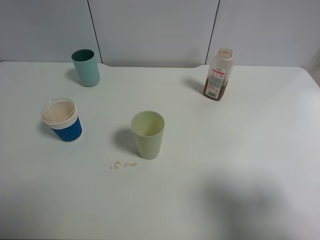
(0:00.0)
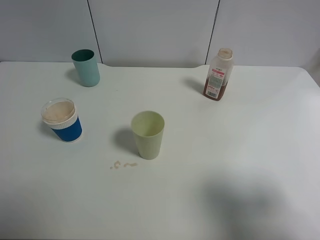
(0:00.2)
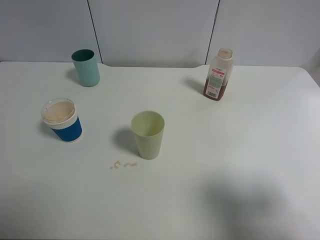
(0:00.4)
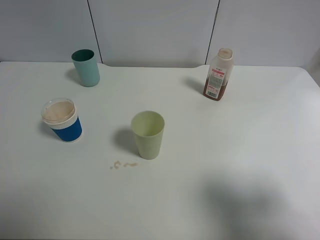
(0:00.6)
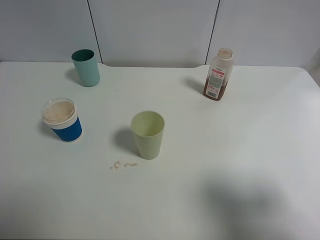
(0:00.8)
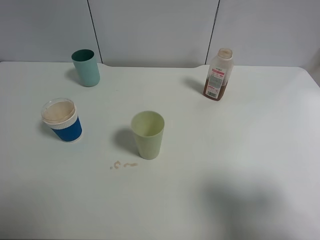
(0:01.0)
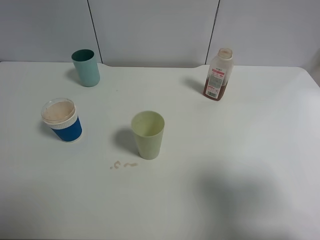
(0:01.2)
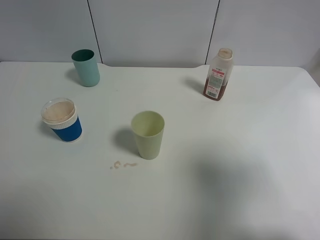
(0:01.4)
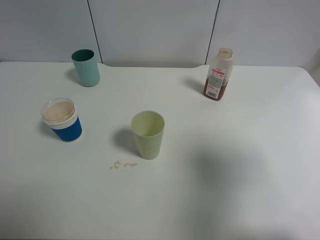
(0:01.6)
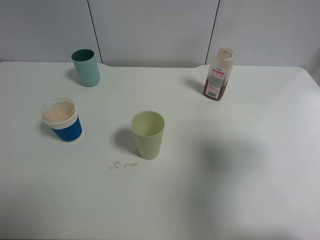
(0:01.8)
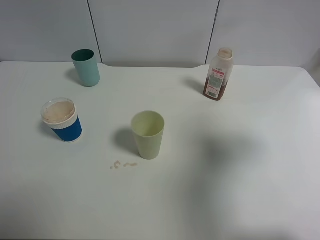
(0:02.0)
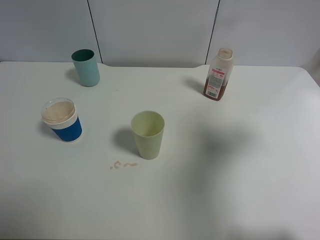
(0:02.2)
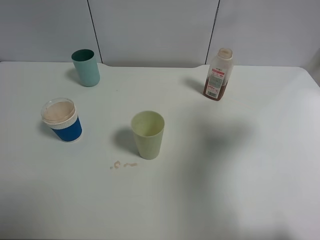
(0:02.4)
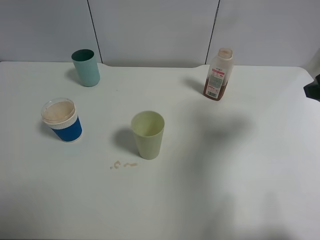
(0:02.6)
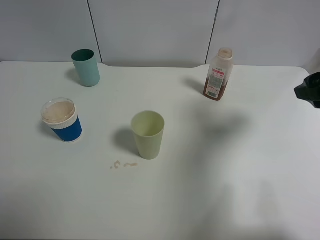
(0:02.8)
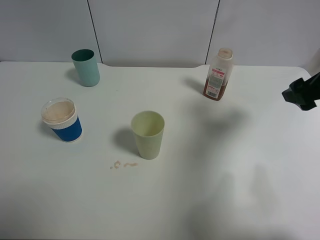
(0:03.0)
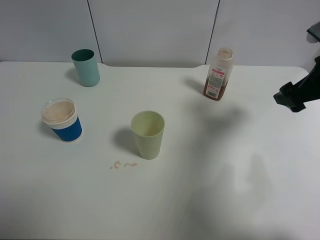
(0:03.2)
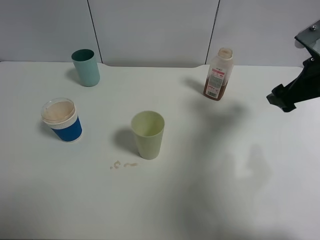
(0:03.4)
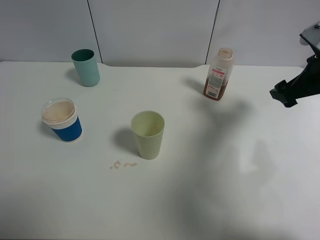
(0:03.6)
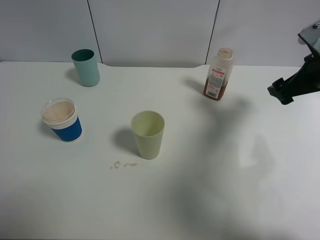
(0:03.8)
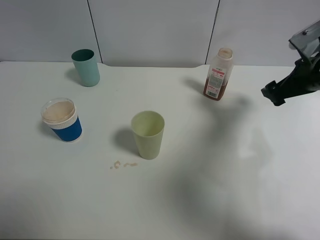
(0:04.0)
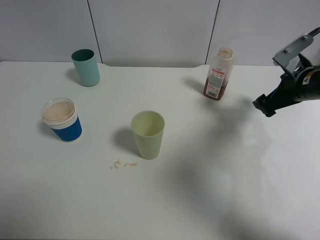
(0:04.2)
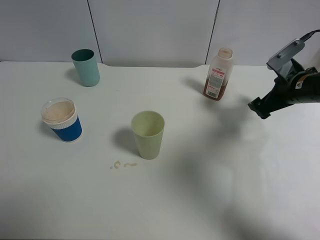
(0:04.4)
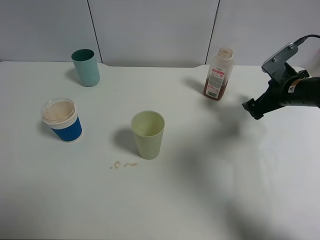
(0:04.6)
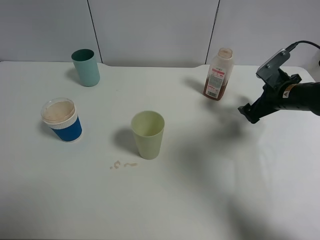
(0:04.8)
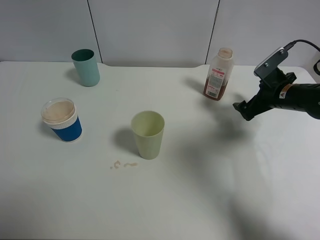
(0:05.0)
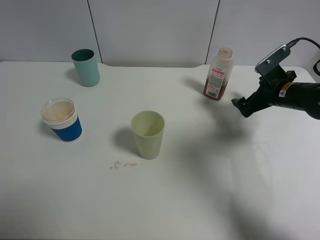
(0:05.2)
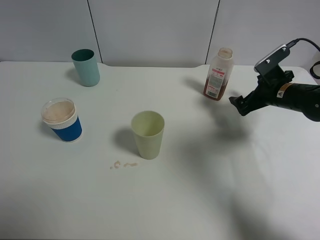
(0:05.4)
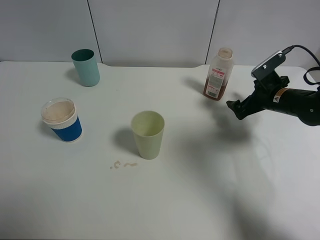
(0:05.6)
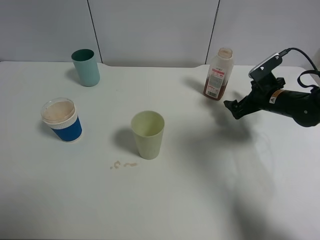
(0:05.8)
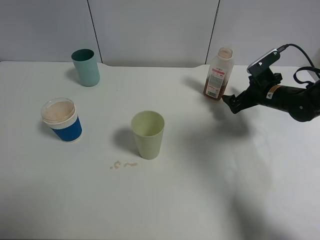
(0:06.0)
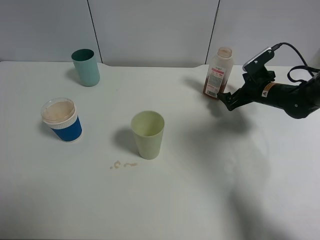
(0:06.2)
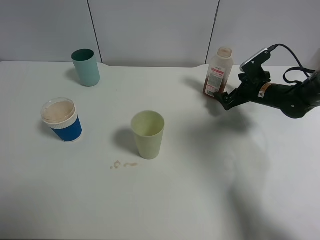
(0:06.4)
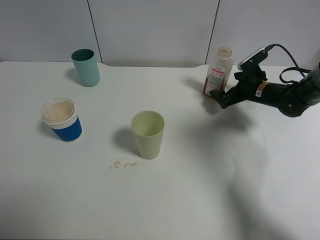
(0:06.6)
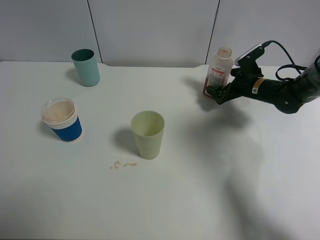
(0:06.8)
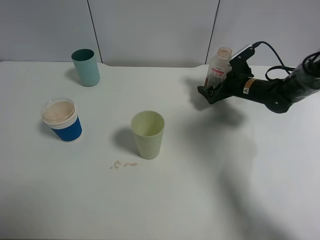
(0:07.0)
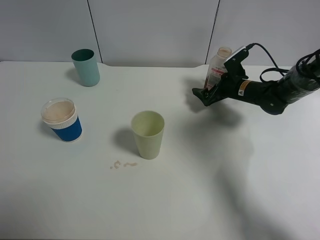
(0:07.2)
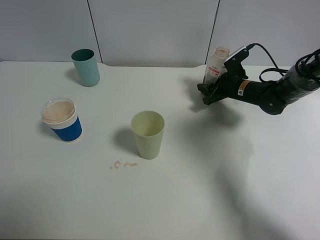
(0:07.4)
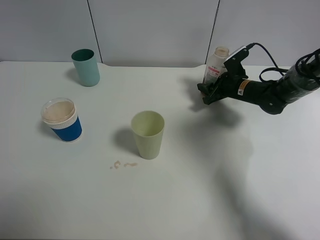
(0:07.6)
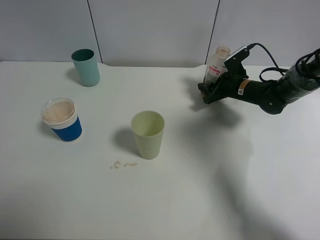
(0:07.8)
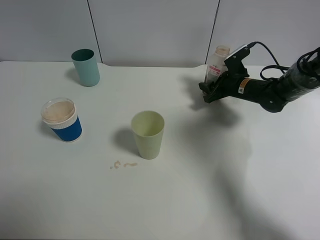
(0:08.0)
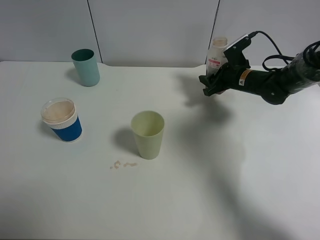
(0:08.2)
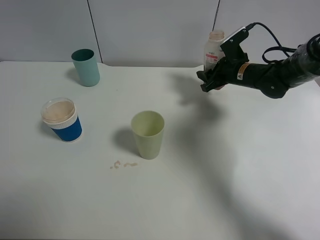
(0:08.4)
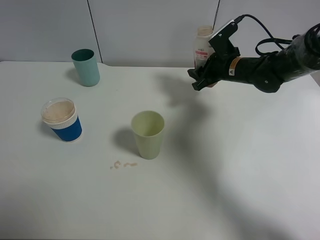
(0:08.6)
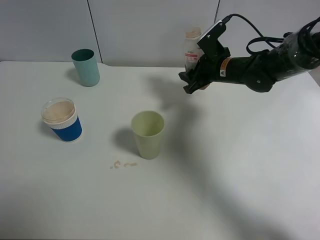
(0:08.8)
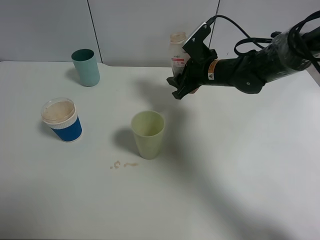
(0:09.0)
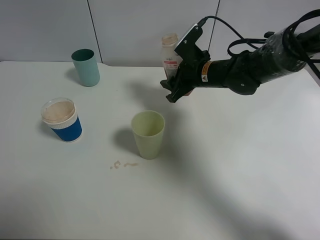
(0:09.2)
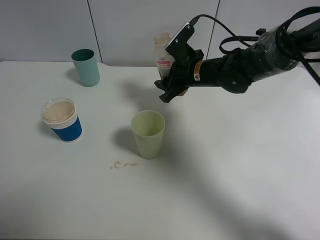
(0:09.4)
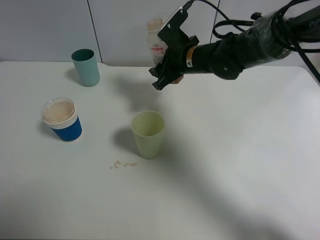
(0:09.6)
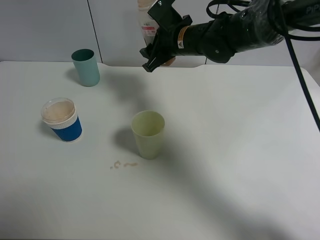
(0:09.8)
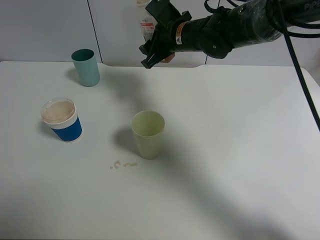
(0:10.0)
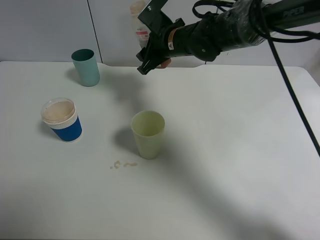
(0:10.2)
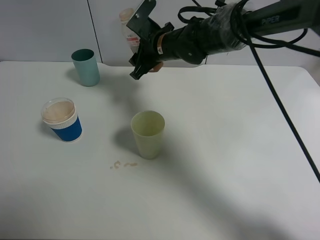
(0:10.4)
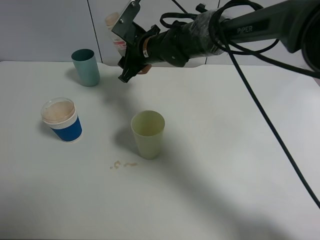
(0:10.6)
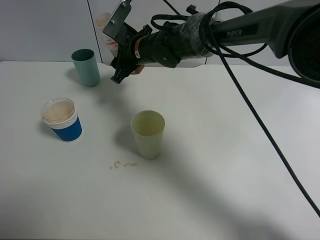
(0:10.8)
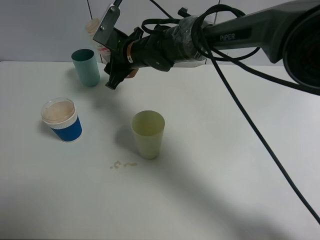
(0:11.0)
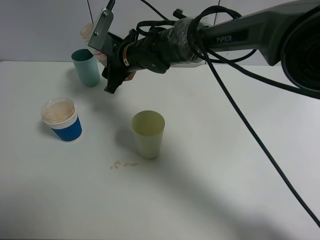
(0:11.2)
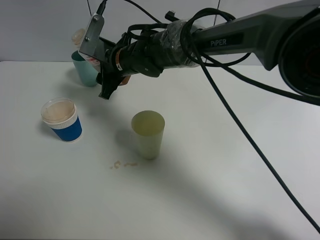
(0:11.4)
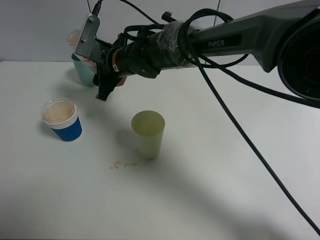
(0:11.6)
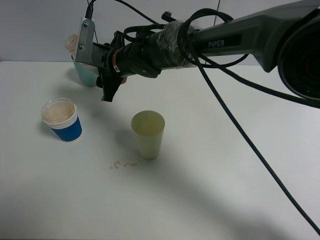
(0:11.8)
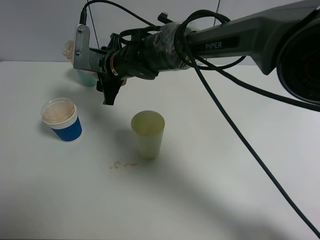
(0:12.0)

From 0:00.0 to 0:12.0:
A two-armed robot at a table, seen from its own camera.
Task of the whole recording: use a clamp to hold the bottle of the drink, pour the beverage into a random cup, then clamp the cup containing the drink and pour the drink into another random cup.
Step, from 0:00.0 to 0:08.2: Pick up the drink bottle with right gripper.
From 0:00.0 to 0:01.6: The right gripper goes about 10 cm forward and upward.
From 0:01.6 to 0:03.0: The right gripper heads forward and downward, covering some 15 cm.
From 0:03.0 to 0:04.4: The right gripper travels downward and forward by about 15 cm.
From 0:04.4 to 0:06.0: The right gripper travels downward and forward by roughly 10 cm.
From 0:06.0 to 0:07.6: The right gripper travels to the left by about 5 cm, and closes its fingers.
From 0:07.6 to 0:09.0: The right gripper travels to the left and upward by about 15 cm.
From 0:09.0 to 0:10.4: The right gripper is displaced to the left by some 10 cm.
From 0:10.4 to 0:12.0: The right gripper is displaced to the left by approximately 10 cm.

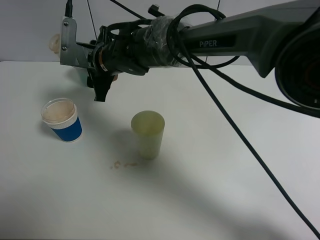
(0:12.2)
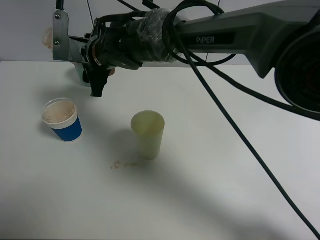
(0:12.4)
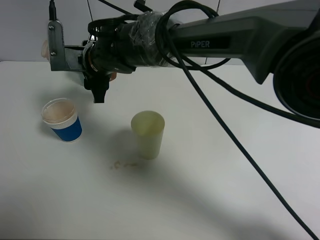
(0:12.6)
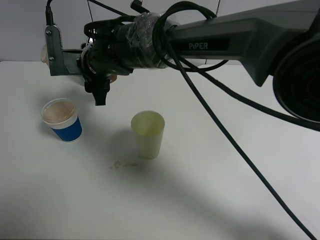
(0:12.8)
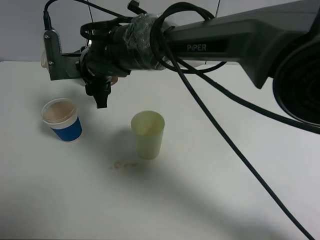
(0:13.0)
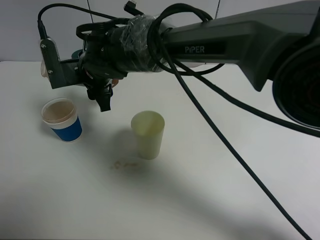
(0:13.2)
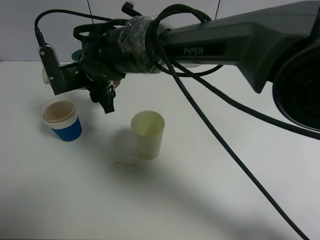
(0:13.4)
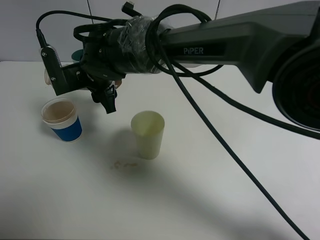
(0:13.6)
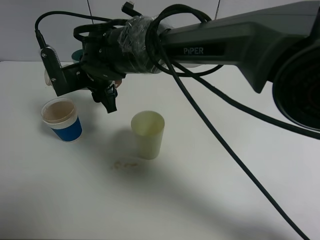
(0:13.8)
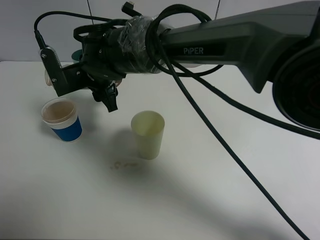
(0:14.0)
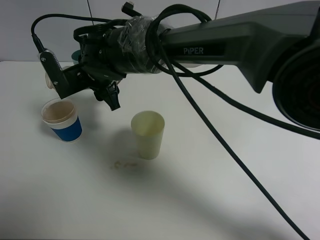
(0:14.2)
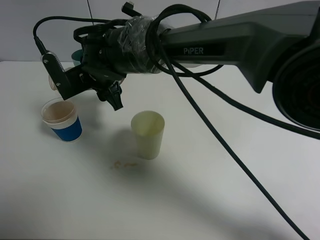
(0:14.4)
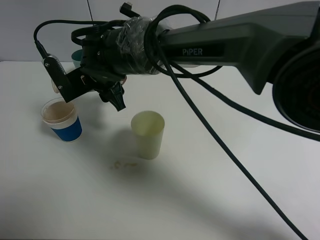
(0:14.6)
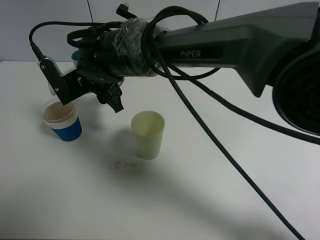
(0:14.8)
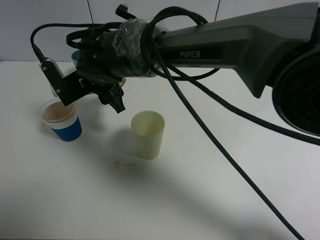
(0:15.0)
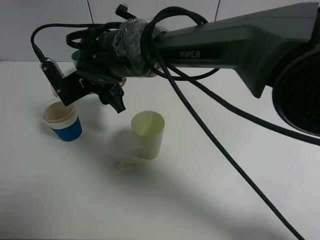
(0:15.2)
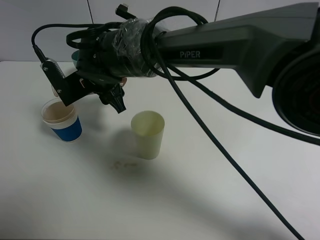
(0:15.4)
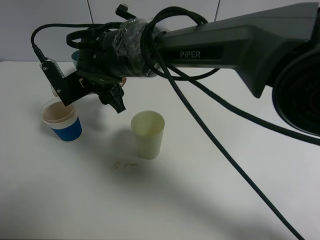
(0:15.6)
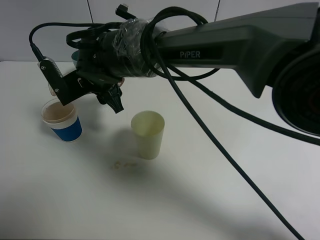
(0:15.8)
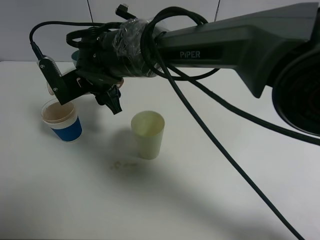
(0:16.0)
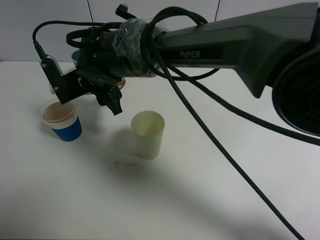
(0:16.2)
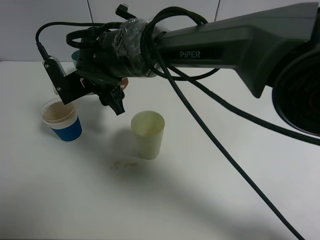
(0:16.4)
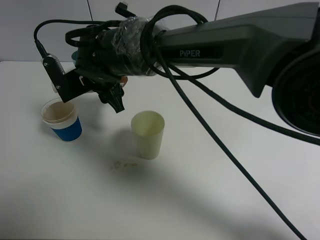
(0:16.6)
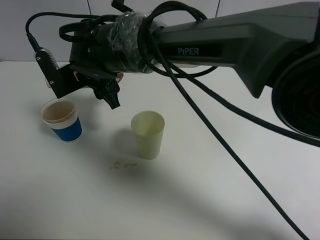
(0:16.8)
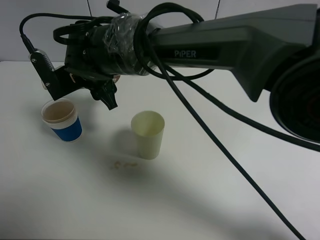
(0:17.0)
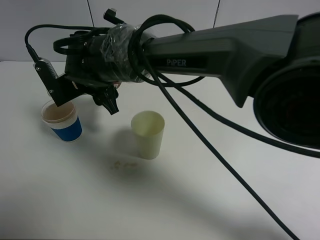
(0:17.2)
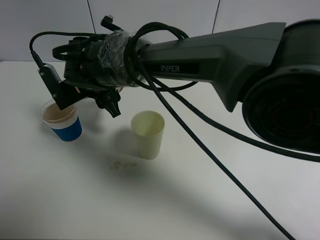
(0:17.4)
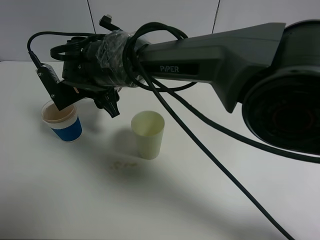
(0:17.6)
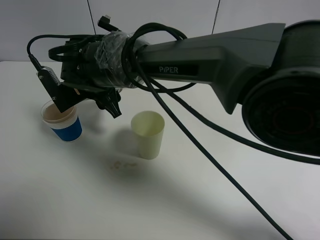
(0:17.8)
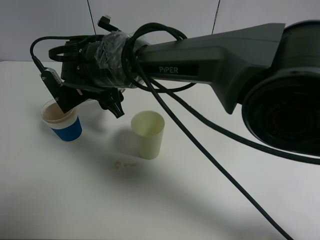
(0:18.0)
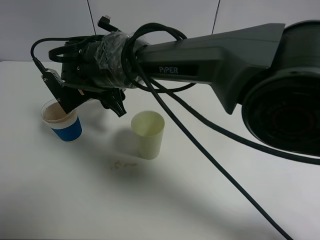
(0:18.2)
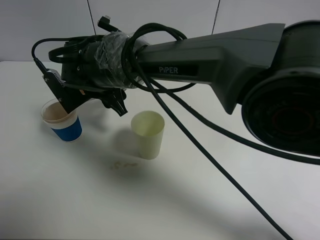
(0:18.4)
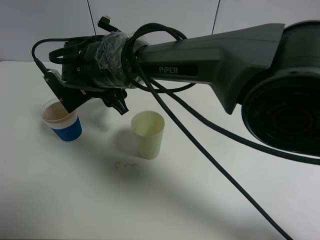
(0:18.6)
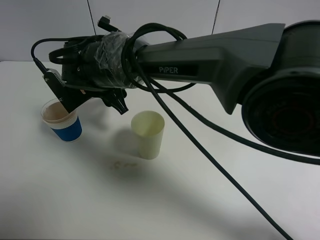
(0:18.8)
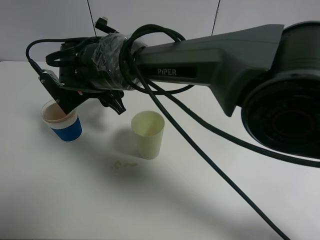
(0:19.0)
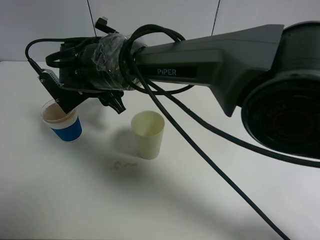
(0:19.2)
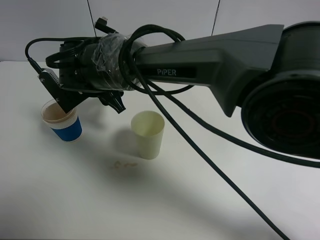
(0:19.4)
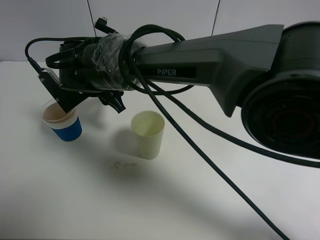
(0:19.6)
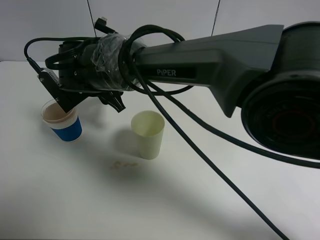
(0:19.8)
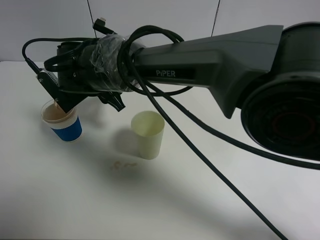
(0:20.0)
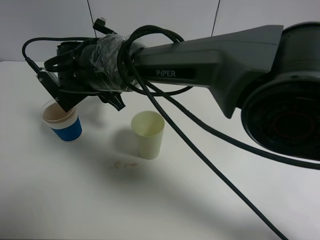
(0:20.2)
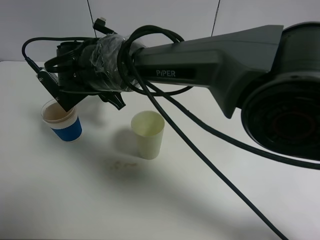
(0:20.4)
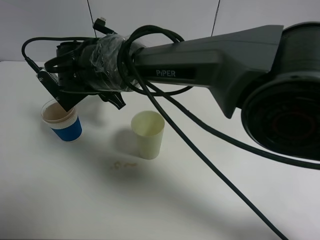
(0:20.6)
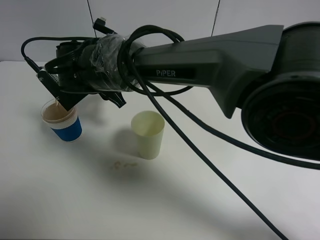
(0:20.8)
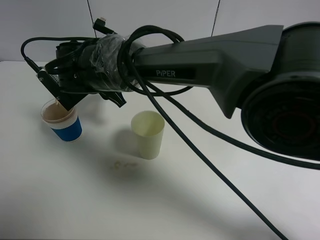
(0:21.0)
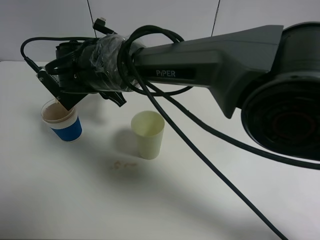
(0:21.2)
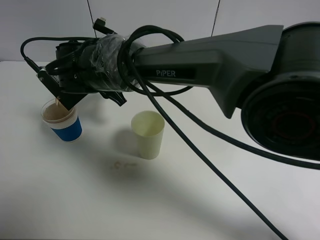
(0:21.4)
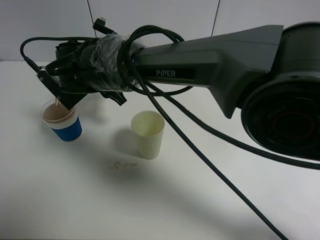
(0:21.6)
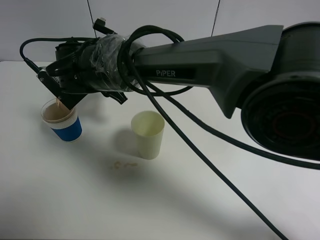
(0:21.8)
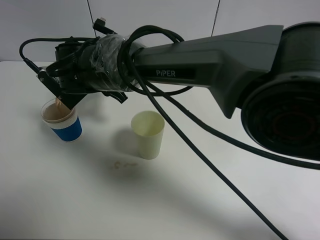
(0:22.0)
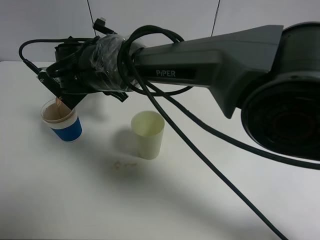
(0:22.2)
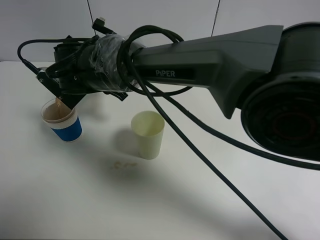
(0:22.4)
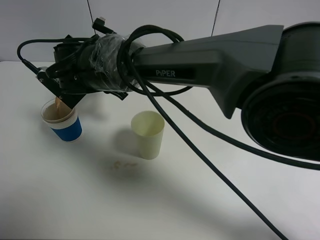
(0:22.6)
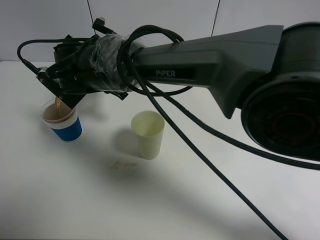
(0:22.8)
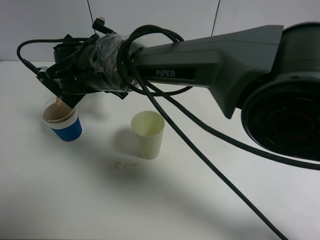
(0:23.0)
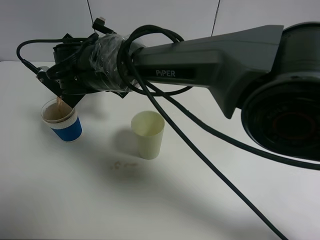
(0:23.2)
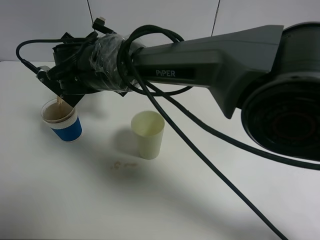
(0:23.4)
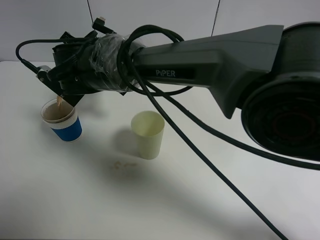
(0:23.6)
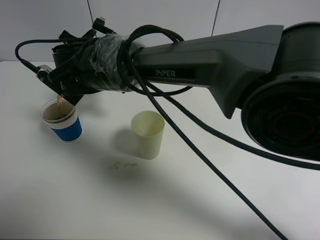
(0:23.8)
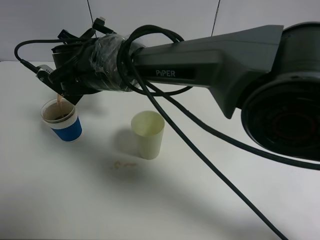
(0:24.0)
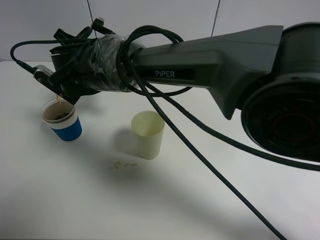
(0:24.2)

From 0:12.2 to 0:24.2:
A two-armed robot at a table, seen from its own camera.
Task of the whole recording: use a clamp to hold the bottle of the drink, pour the beverage into a random cup, then clamp the cup containing the drink and pour the drink into another random cup.
From 0:13.8 to 0:15.2: There are only small adjustments of the grippers.
From 0:15.2 to 0:16.6: Both grippers stay put.
From 0:18.2 to 0:22.6: There are only small adjustments of the grippers.
From 0:22.6 to 0:24.2: The grippers stay close to where they were, moving slightly.
